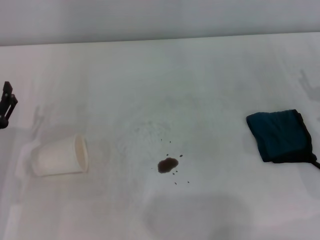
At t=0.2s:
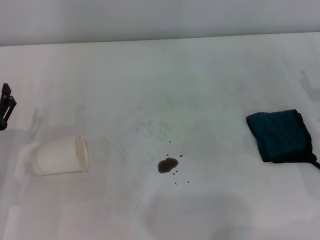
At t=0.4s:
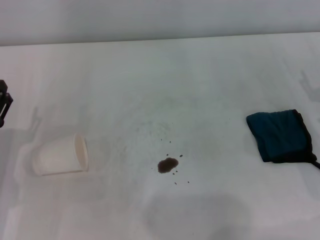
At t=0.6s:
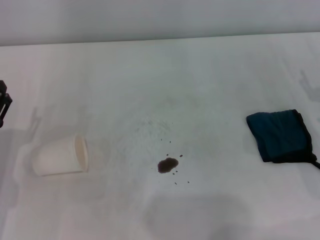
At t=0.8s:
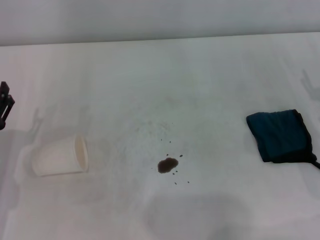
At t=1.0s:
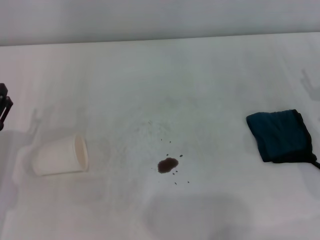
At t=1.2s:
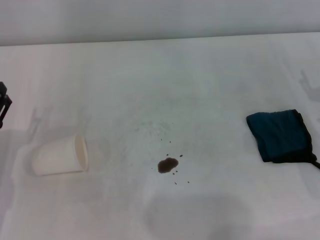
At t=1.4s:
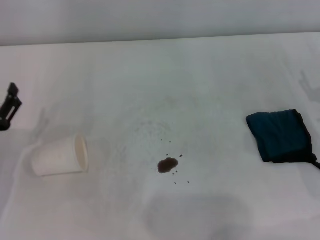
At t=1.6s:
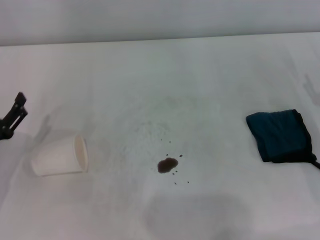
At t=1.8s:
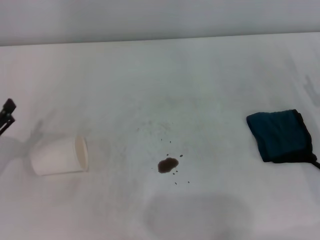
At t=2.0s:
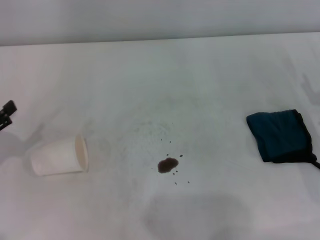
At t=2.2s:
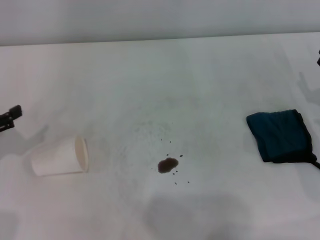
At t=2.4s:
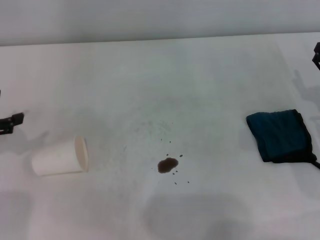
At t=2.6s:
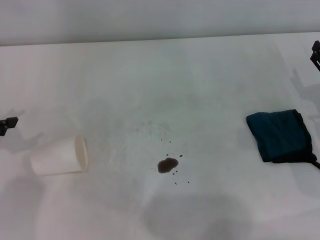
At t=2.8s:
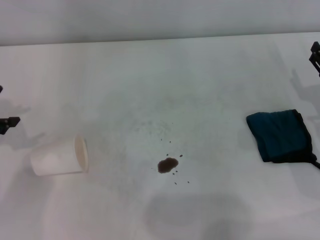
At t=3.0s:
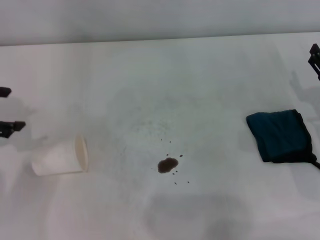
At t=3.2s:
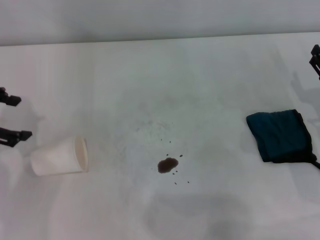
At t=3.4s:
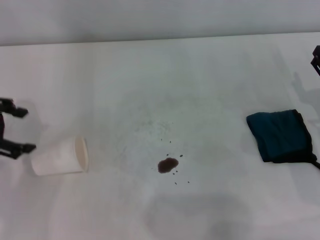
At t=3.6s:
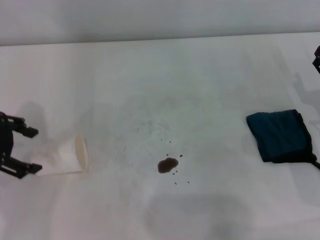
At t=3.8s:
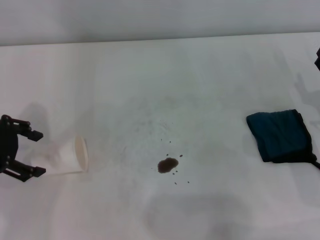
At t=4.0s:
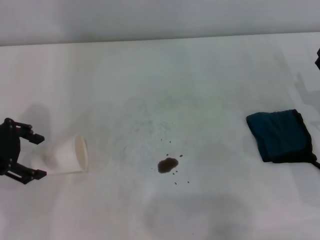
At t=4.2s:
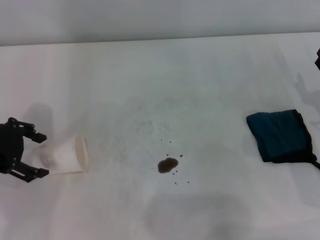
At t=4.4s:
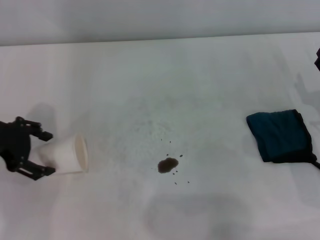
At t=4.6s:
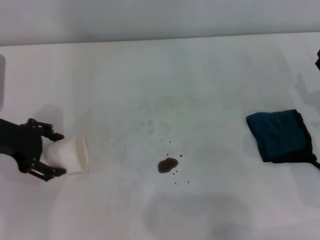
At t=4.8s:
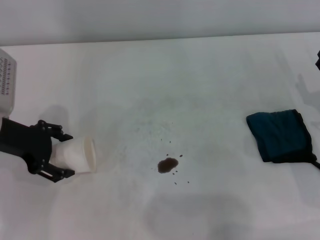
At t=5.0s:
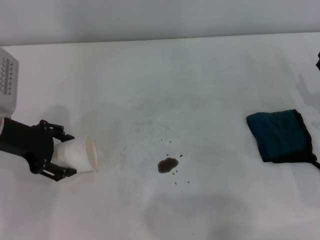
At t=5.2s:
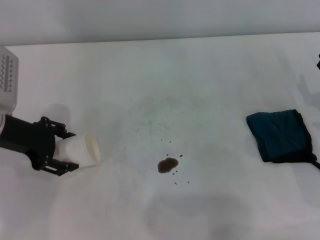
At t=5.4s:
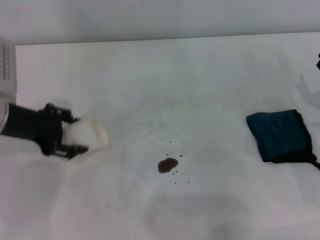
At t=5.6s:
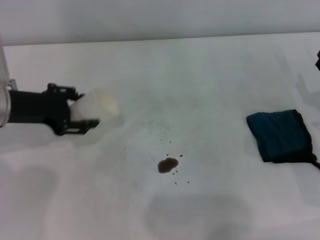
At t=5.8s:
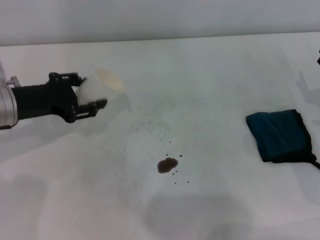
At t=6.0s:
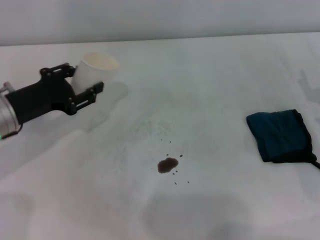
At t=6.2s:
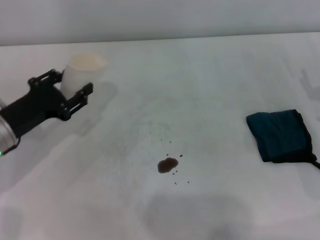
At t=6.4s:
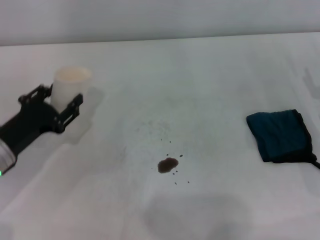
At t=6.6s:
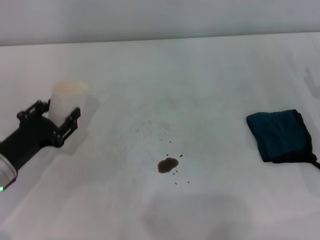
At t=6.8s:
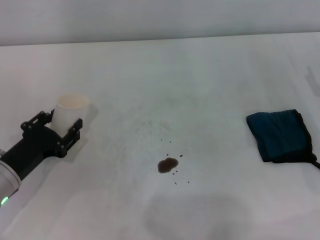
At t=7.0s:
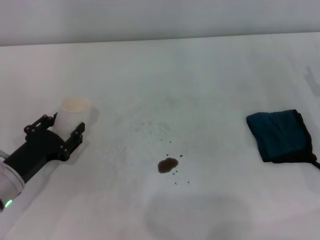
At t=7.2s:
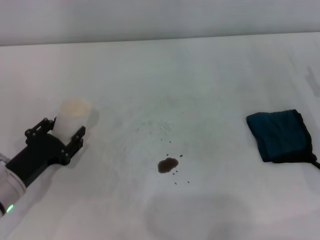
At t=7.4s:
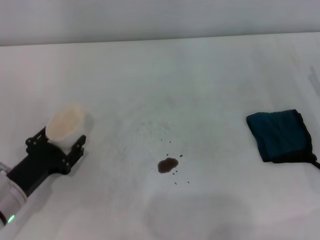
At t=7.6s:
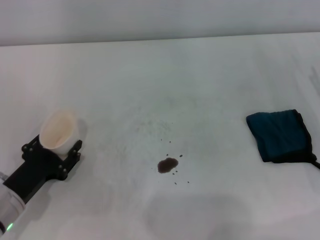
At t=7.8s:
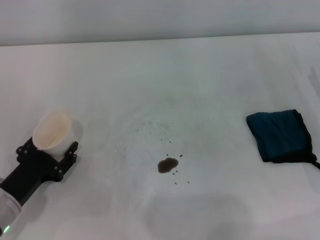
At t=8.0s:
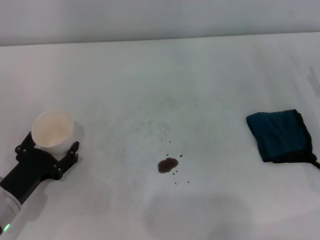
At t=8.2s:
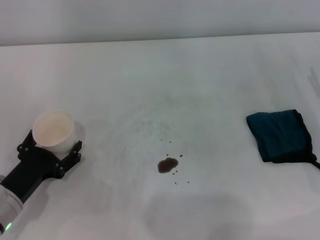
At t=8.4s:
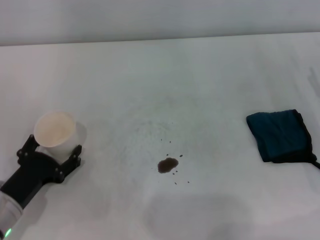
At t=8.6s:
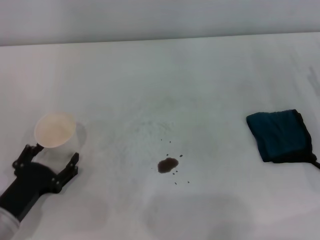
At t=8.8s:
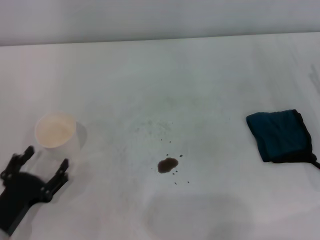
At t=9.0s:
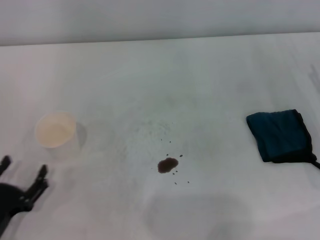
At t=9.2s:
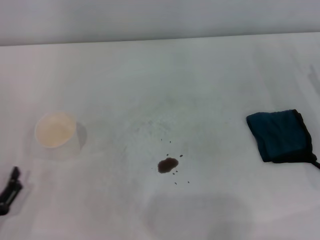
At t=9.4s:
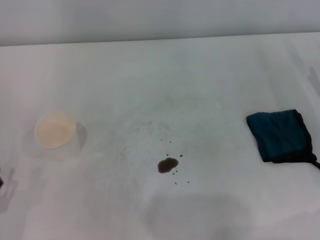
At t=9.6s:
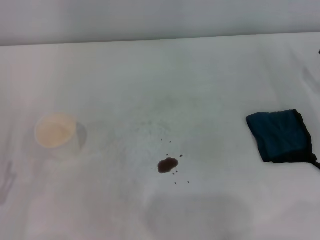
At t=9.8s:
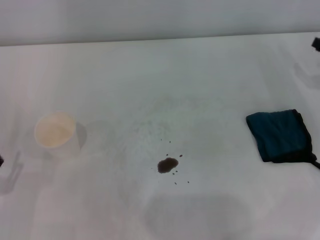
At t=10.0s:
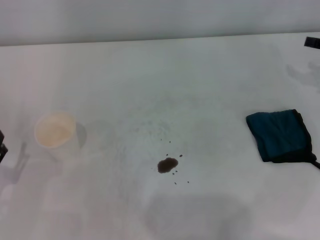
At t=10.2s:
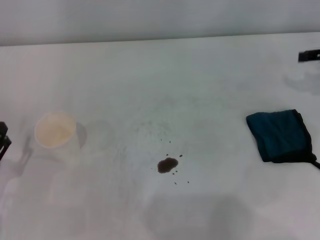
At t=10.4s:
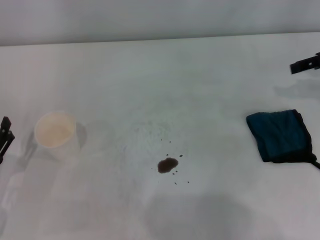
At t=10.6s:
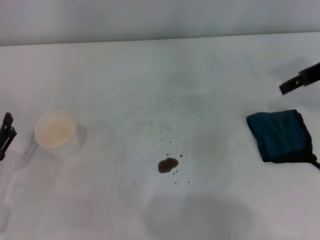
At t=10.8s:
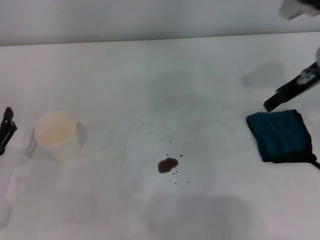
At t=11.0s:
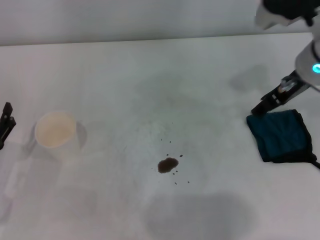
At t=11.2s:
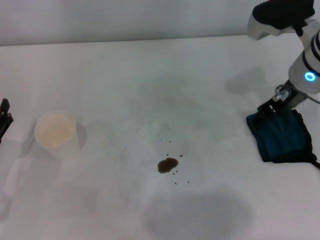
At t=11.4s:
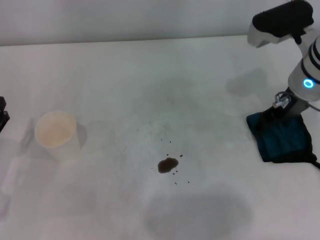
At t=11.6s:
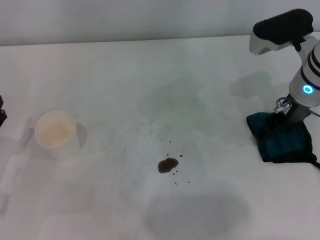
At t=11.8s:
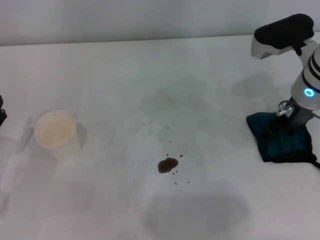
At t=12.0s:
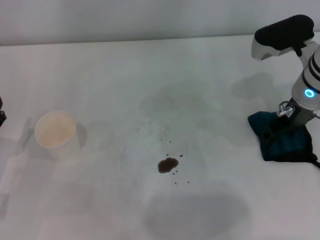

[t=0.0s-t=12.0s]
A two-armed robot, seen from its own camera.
Step, t=0.0s to t=5.0s: Grasp the paper cup with the left gripper.
Step, t=5.2s to t=8.4s: Stand the paper cup upright with the left gripper.
t=0.0s to t=1.6s: The grippers move only a little.
t=1.6s to t=3.0s: The left gripper moves upward and forward, roughly 20 cm.
t=3.0s to t=4.4s: The left gripper changes place by about 5 cm.
t=4.4s to t=6.0s: The left gripper is displaced downward by roughly 5 cm, and closes.
t=6.0s to t=7.6s: The left gripper heads backward and downward, covering roughly 15 cm.
t=7.6s to t=9.0s: The left gripper heads backward, covering roughly 10 cm, and opens up.
t=9.0s to t=10.4s: The left gripper ends up some 5 cm from where it was. Meanwhile the right gripper travels upward and forward by roughly 15 cm.
t=10.4s to t=12.0s: The right gripper shifts some 15 cm to the left and downward.

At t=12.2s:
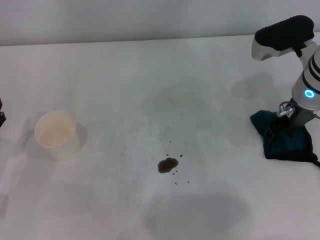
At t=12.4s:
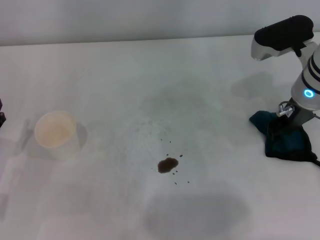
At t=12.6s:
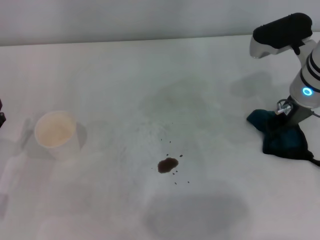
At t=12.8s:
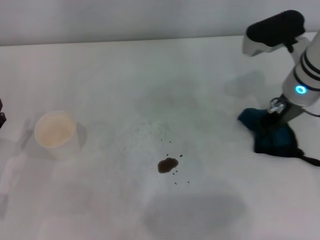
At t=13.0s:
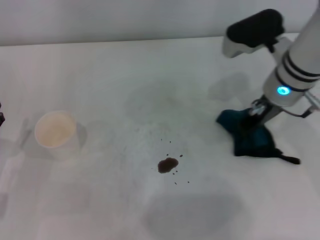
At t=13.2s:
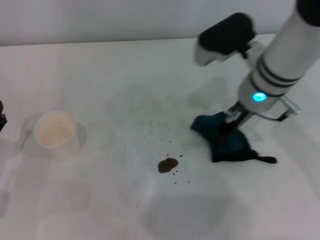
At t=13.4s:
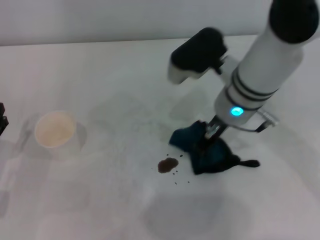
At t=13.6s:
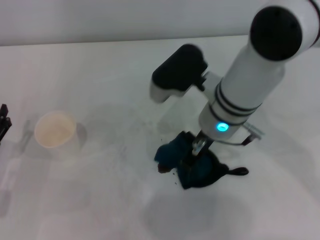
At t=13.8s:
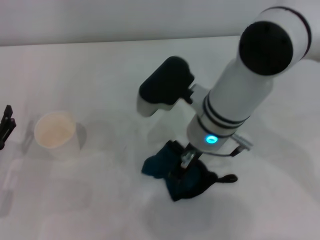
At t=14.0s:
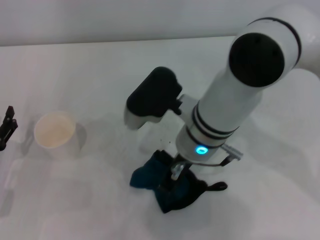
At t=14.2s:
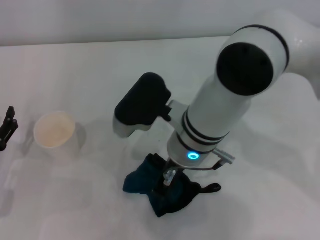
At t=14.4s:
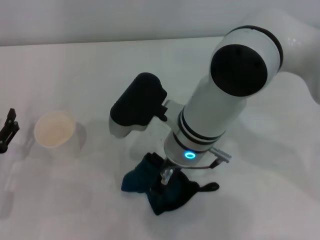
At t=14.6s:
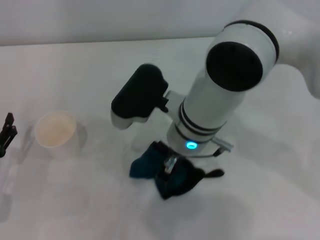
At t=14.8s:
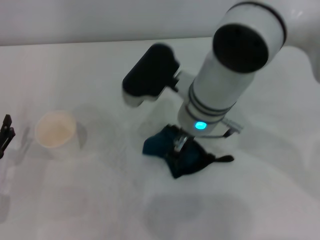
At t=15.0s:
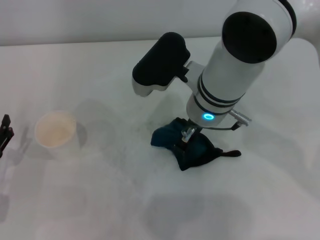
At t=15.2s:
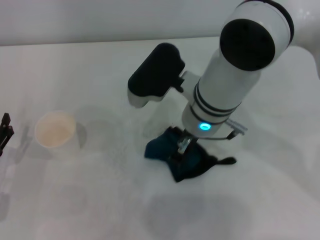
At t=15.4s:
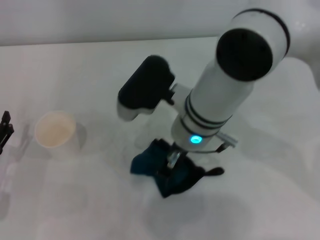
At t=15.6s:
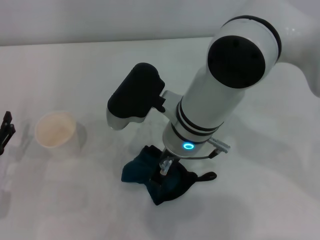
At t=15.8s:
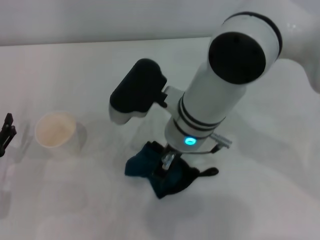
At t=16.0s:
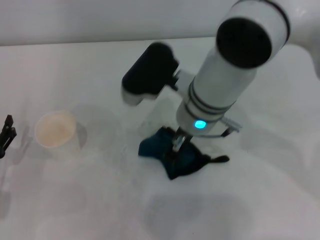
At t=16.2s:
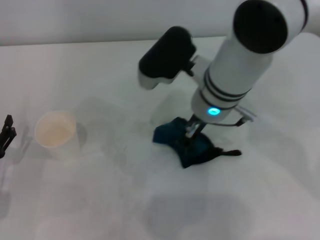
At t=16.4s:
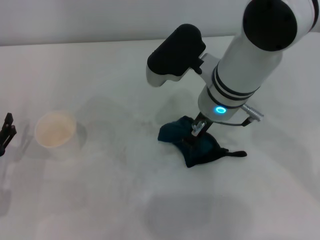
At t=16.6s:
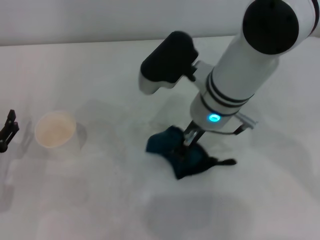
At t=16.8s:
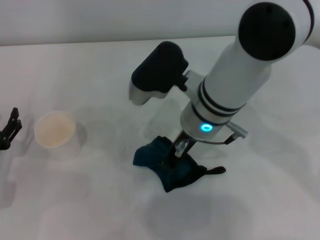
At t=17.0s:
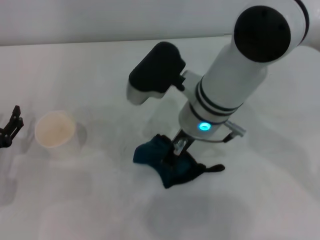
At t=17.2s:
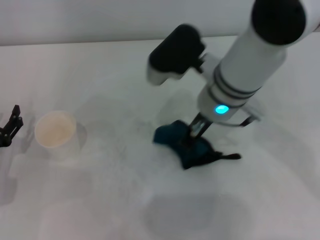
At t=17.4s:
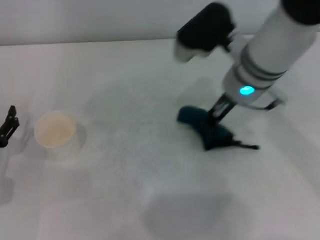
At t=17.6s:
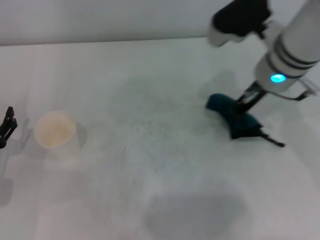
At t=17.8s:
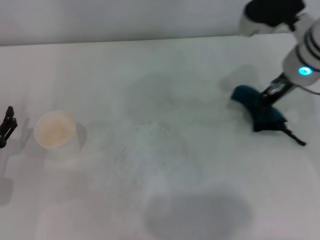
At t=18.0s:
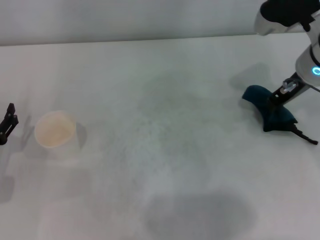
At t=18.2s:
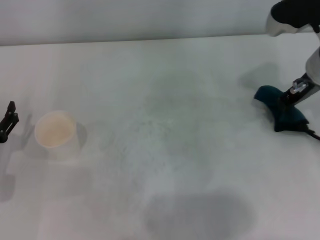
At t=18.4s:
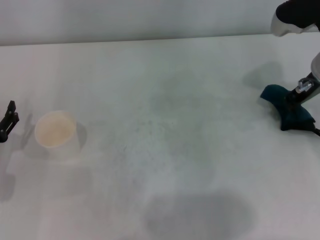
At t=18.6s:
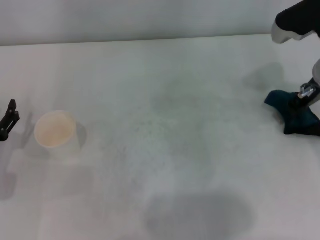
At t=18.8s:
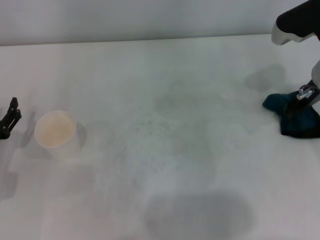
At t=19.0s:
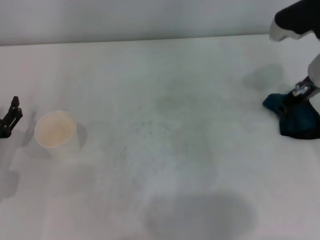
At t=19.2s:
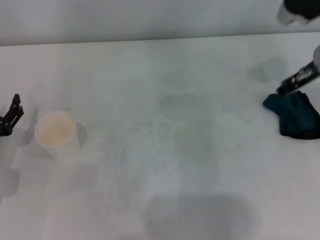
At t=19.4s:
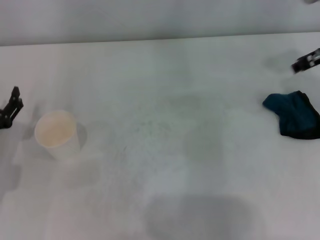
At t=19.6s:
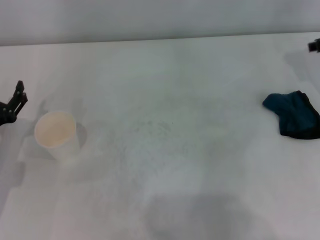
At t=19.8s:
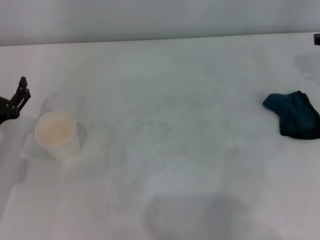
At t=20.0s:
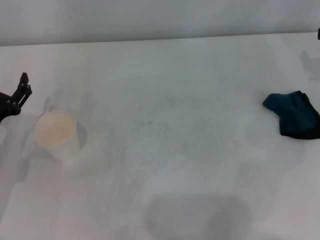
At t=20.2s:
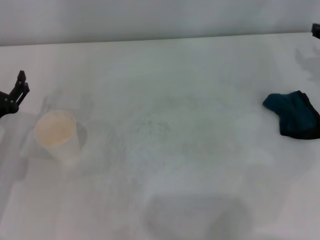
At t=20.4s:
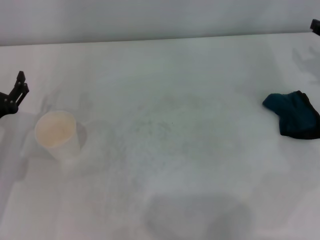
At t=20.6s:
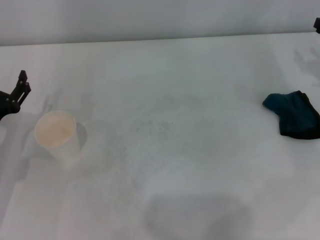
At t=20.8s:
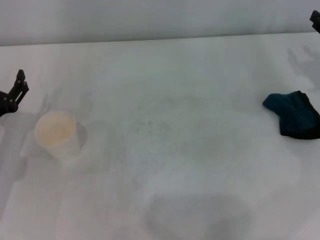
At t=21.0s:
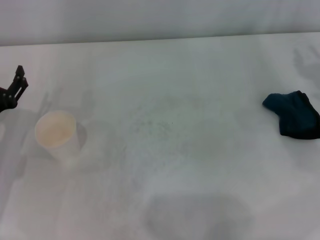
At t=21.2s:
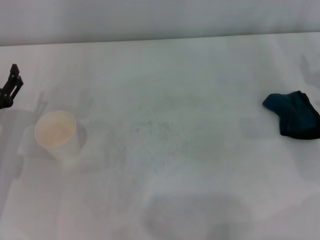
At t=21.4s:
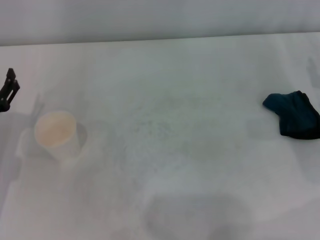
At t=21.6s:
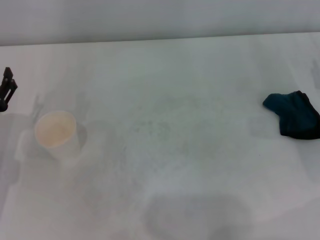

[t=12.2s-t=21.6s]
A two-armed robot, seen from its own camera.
Step, t=12.6s to t=18.0s: Wipe the stains off the table with the right gripper.
Step, t=18.2s to t=18.8s: Place the rag on the table with the right gripper.
t=12.2s to t=13.8s: The right gripper goes about 15 cm to the left, and closes its fingers.
t=13.8s to t=17.0s: The grippers stay close to where they were, moving slightly.
t=17.0s to t=18.4s: The right gripper is displaced to the right by roughly 20 cm.
t=18.4s to t=20.0s: The right gripper moves to the right, some 10 cm, and opens up.
